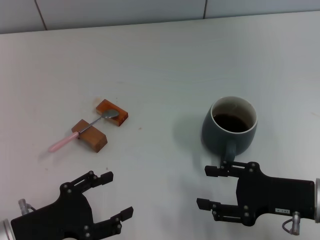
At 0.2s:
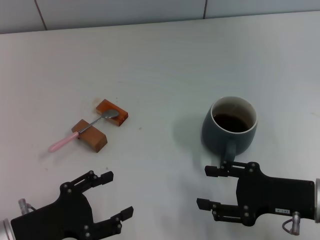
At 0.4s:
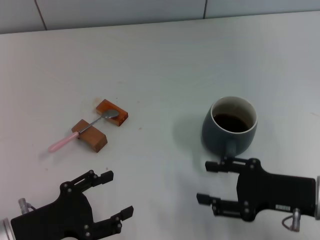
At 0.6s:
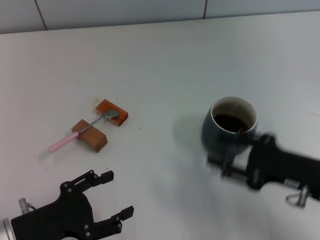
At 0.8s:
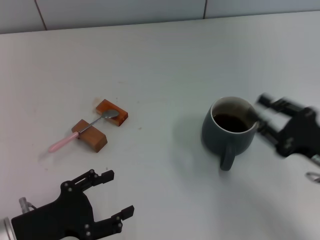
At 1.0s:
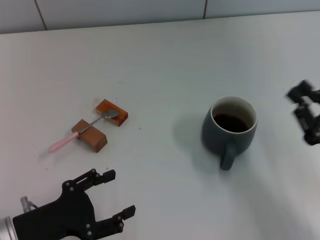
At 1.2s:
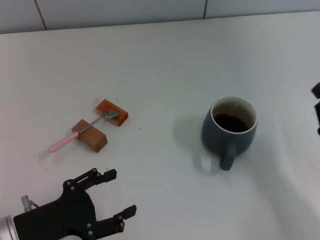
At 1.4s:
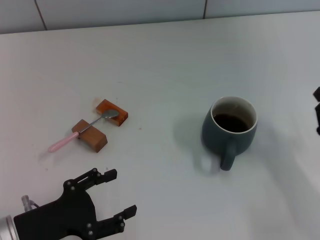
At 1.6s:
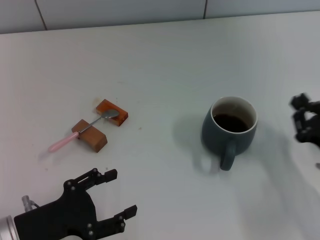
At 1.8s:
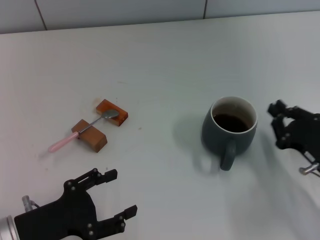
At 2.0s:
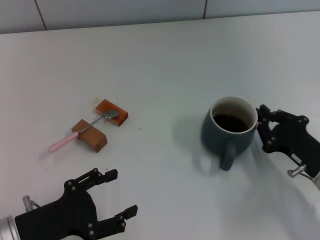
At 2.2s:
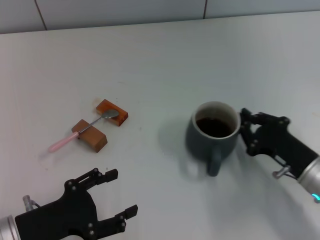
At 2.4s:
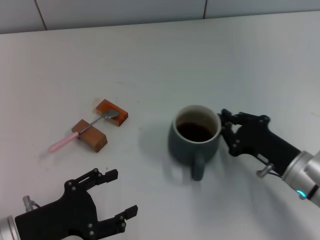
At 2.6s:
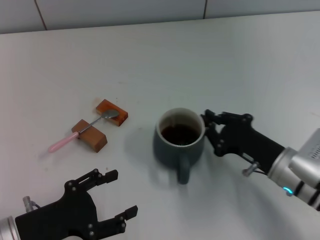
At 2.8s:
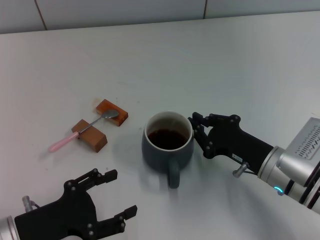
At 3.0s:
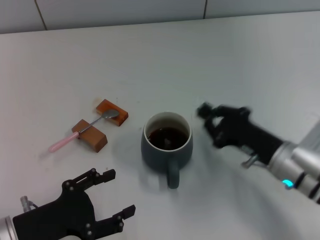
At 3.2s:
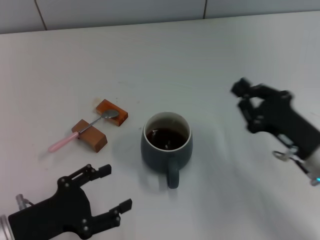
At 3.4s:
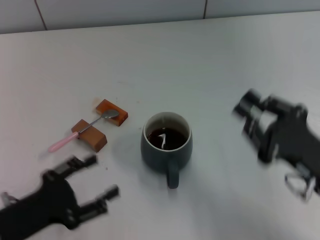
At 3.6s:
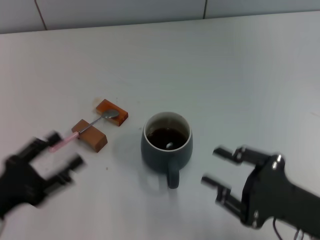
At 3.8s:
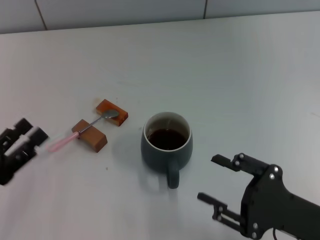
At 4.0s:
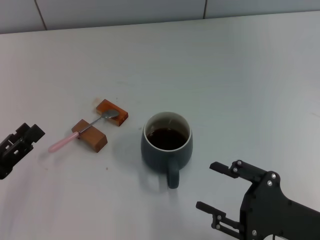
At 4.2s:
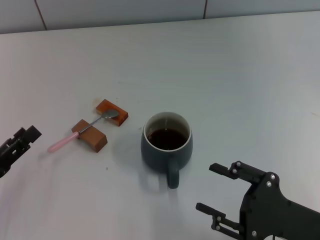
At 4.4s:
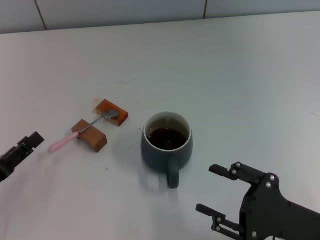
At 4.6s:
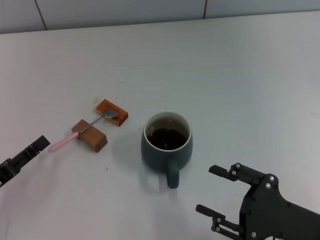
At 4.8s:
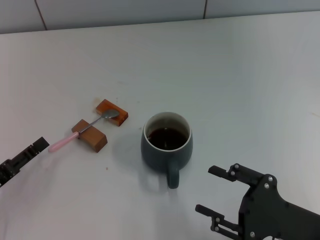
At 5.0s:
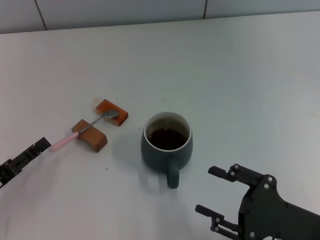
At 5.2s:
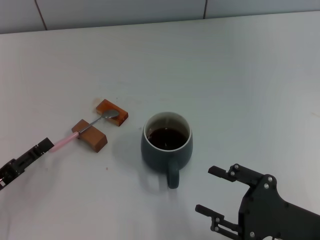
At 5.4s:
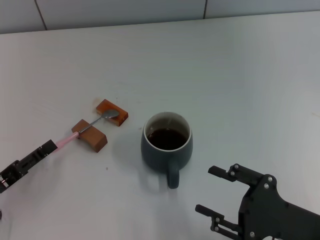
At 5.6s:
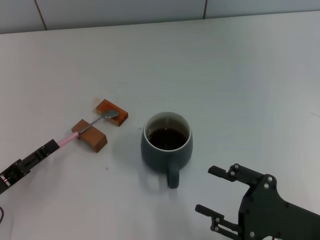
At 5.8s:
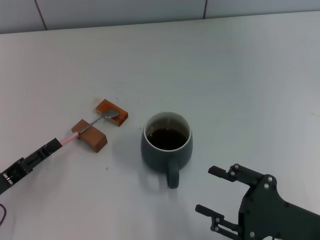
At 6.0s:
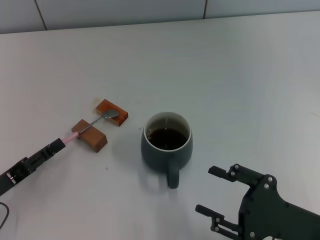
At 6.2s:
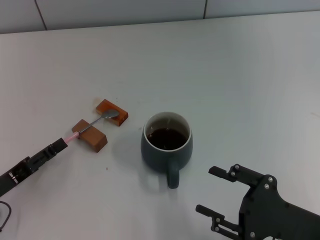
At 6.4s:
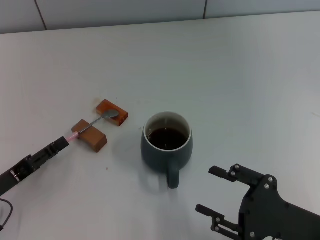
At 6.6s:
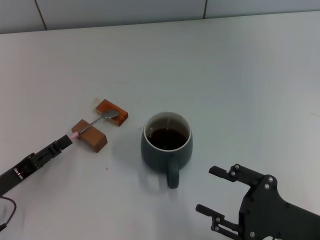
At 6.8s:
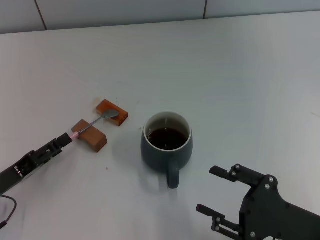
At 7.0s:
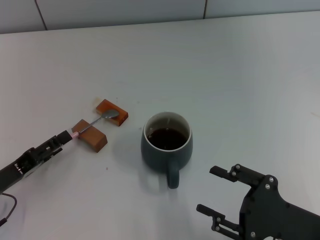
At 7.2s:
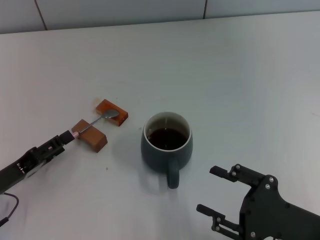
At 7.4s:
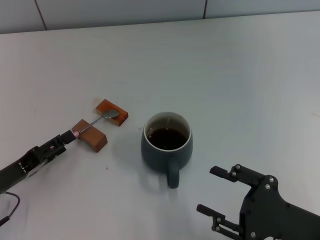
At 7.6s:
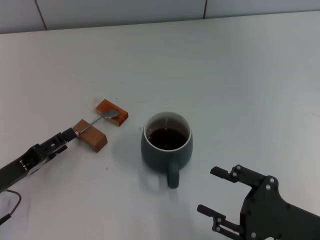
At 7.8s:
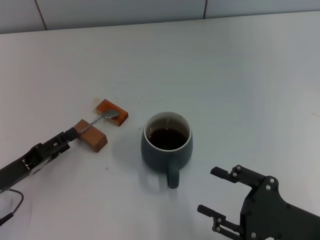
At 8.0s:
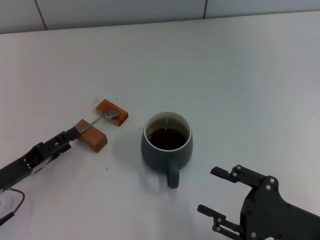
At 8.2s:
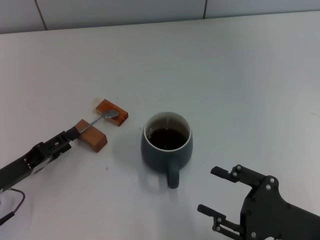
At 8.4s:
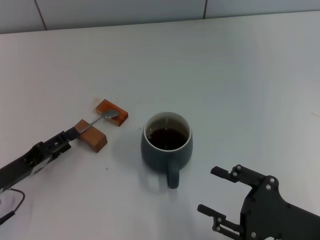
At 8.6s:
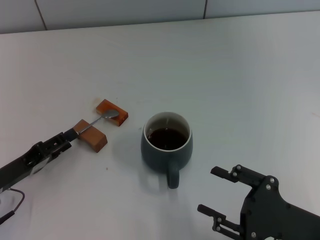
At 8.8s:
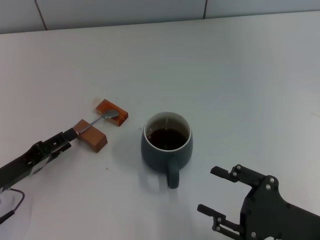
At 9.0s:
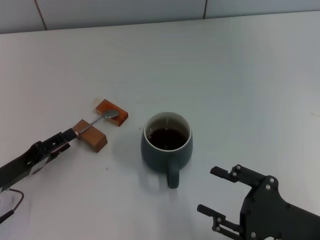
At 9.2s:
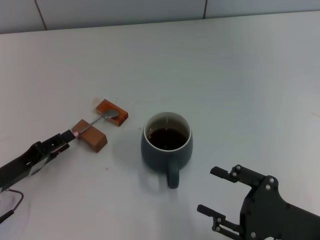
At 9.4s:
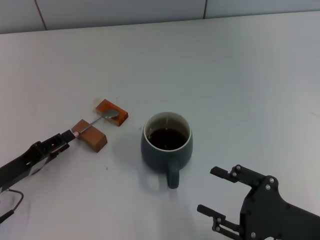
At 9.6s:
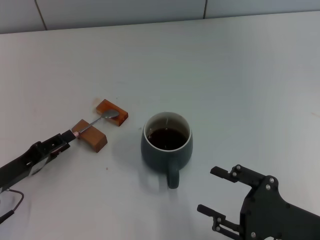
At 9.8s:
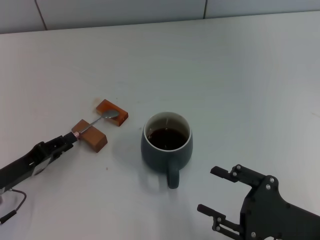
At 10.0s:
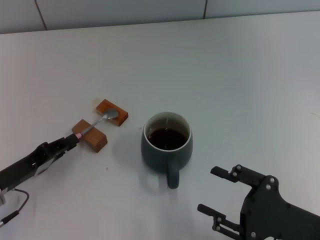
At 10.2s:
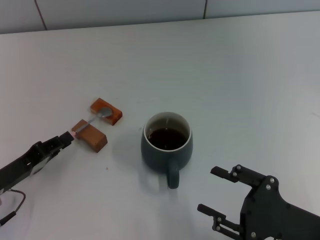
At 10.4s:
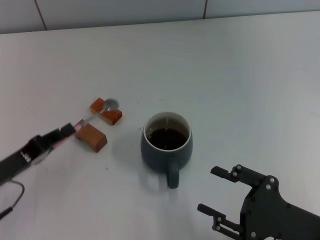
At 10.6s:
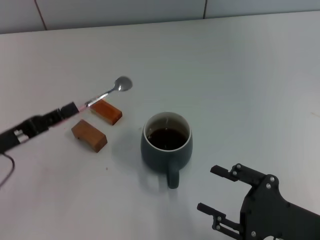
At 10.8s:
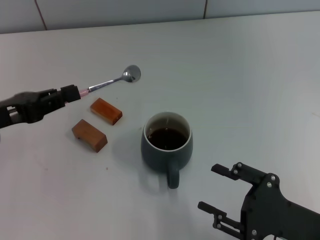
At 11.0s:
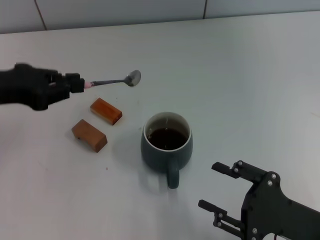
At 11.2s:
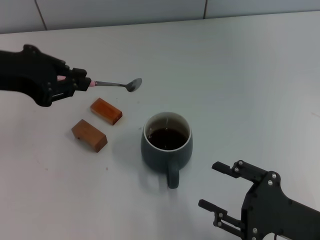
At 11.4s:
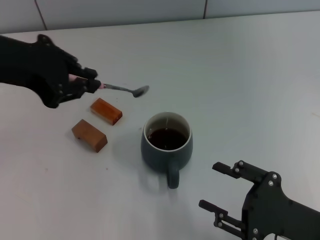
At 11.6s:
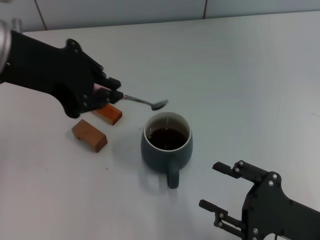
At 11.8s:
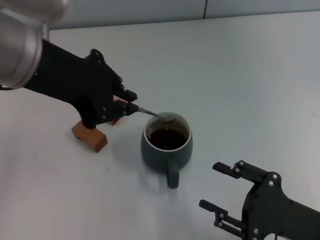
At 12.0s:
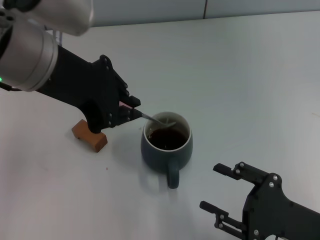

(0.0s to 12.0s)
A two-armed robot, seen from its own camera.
Task of the whole recording: Move the grey cup to the center, lift the pink spoon, stir it three times in the cup, and put the spoon into the cup.
Step, 0.0s - 2.8s: Move the cup with coffee to the center of view with the right gripper.
Step, 3.2s - 10.4s: Pick up the spoon with the left gripper.
0.0s - 1.6s: The right gripper is displaced to the right and downward by some 10 cm, and closes up.
1.6s - 3.0s: The right gripper is displaced to the left by some 10 cm.
3.0s - 4.4s: The left gripper is displaced to the left by roughly 10 cm. The right gripper moves backward, about 10 cm, and opens.
4.4s - 7.6s: The grippers move only a little.
7.6s - 9.0s: The two grippers keep their place.
9.0s - 10.4s: The left gripper closes.
10.4s - 12.0s: The left gripper moves upward and to the right, roughly 30 cm.

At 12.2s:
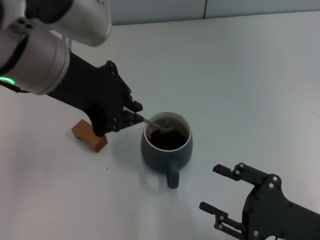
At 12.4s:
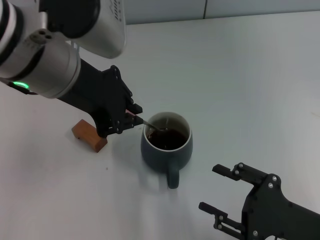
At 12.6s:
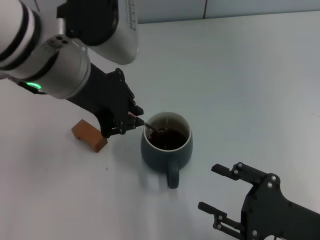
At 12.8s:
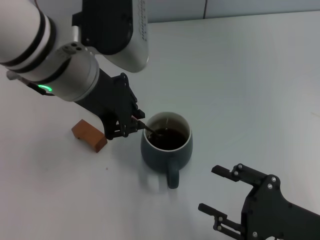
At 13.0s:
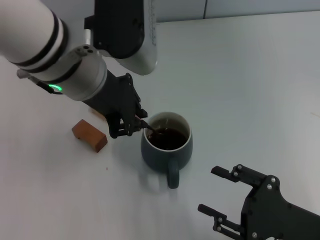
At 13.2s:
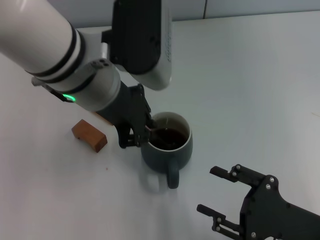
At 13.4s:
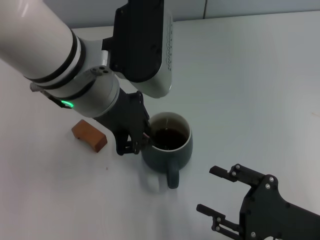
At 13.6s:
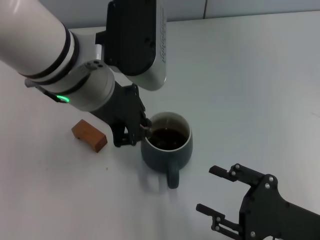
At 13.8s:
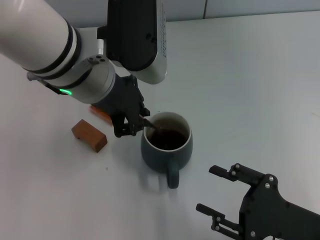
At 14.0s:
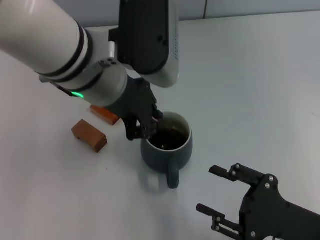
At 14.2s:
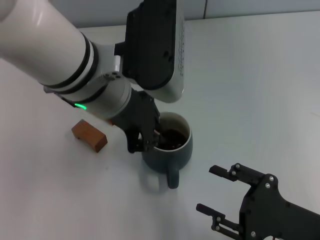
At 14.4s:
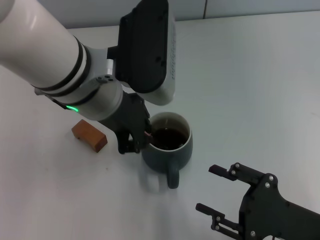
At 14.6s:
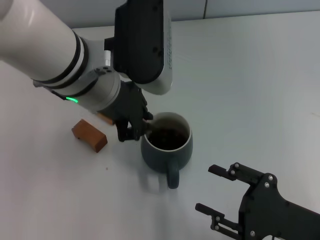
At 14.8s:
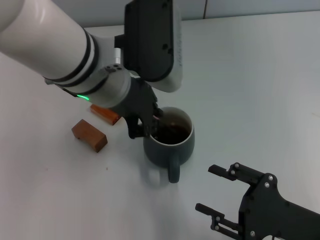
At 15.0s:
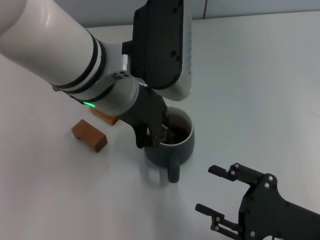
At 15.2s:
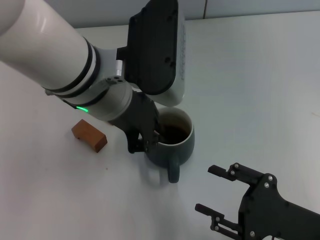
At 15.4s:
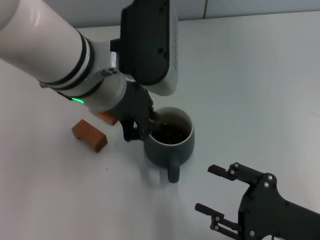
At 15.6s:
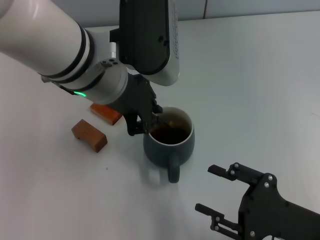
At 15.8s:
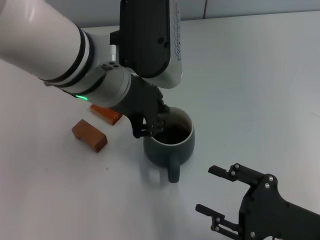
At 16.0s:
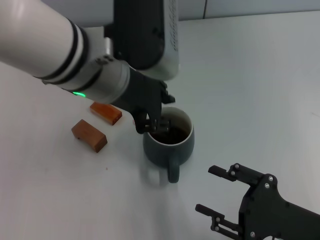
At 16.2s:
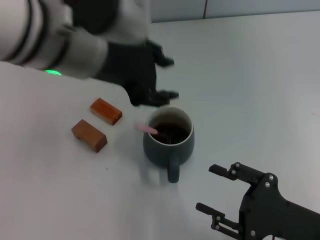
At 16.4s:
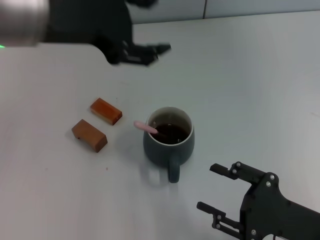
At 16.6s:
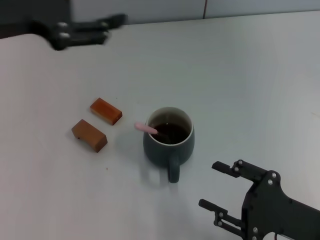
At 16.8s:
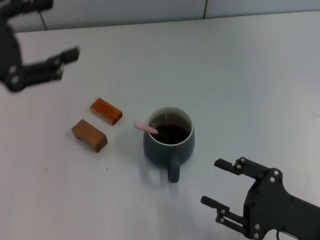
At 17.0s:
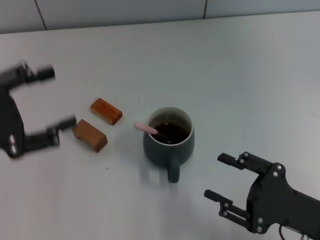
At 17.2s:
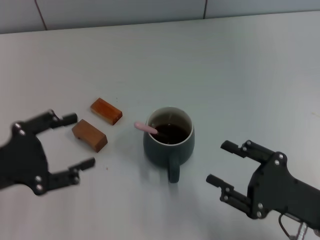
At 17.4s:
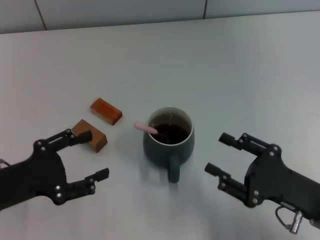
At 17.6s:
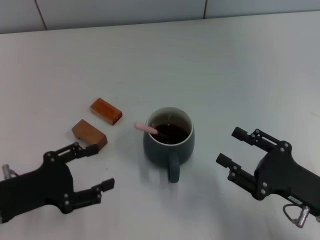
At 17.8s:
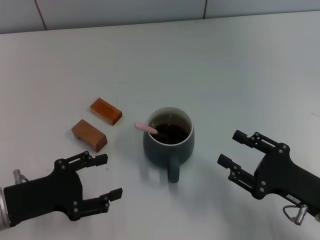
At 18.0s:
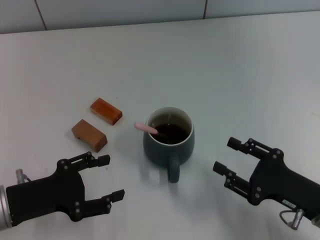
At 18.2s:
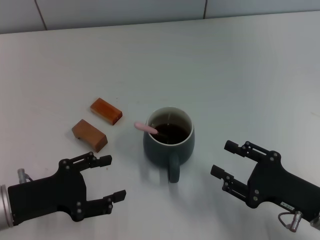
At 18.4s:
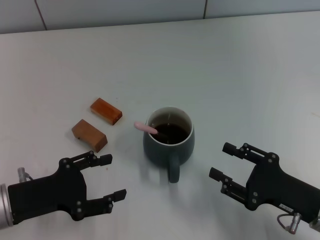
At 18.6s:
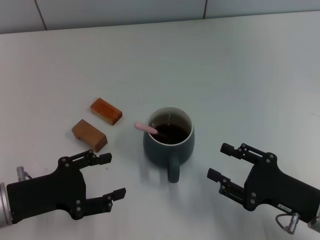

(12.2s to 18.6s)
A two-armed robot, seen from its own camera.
Task of the whole recording: Move the grey cup to the center, lift the pink spoon, stir it three times in the cup, and put the spoon into the cup.
Step, 12.2s - 16.0s: Stir the coffee in the cup with the left gripper.
12.2s - 13.8s: The left gripper changes place by approximately 5 cm.
13.8s - 15.4s: The grippers stay close to where they were, moving slightly.
15.4s - 17.0s: The left gripper shifts some 20 cm to the left, and opens up.
17.0s - 18.6s: The left gripper shifts some 10 cm downward.

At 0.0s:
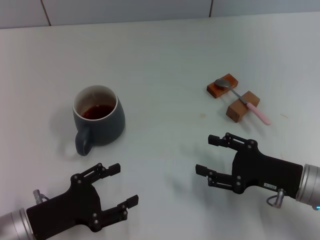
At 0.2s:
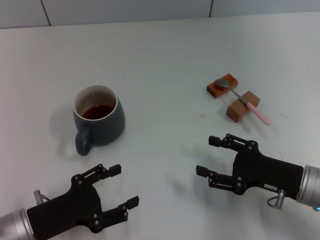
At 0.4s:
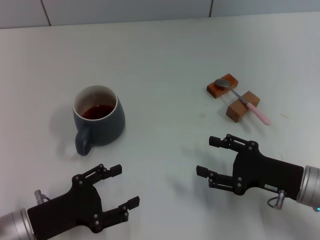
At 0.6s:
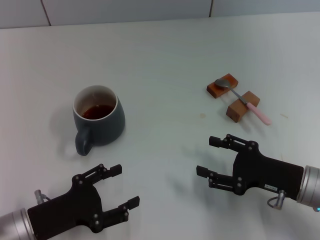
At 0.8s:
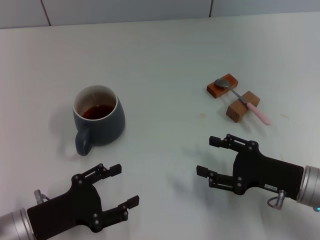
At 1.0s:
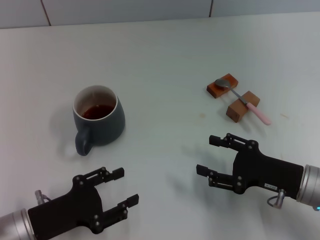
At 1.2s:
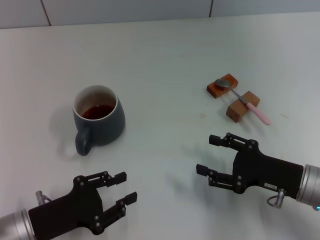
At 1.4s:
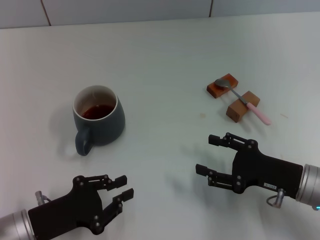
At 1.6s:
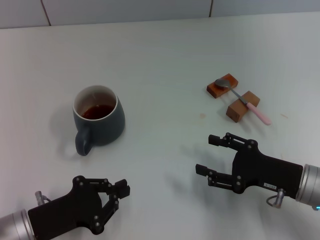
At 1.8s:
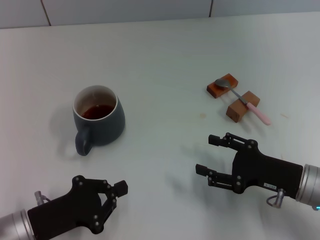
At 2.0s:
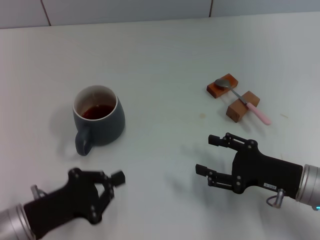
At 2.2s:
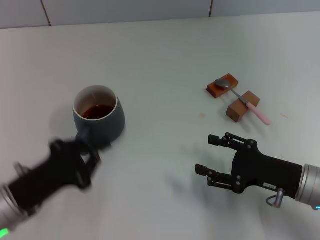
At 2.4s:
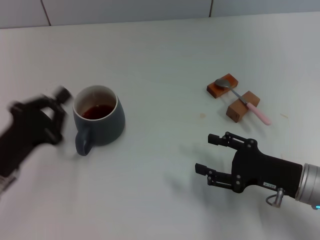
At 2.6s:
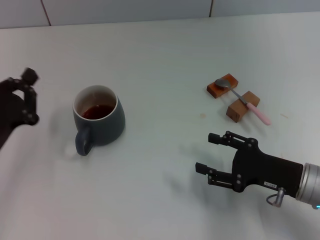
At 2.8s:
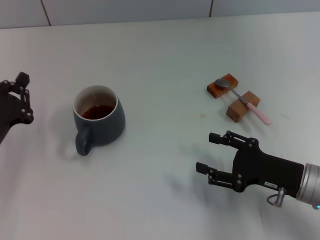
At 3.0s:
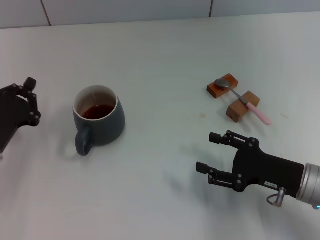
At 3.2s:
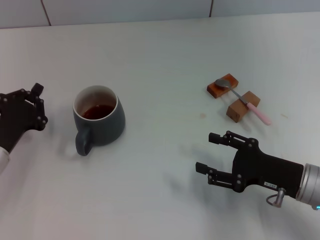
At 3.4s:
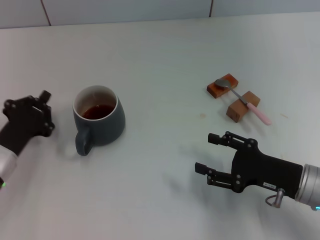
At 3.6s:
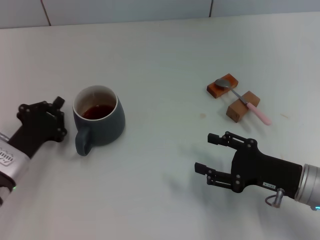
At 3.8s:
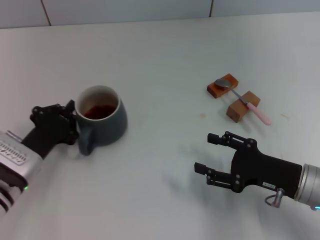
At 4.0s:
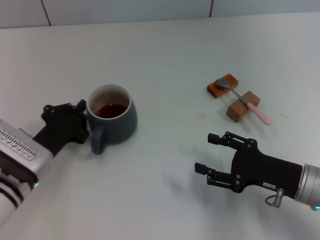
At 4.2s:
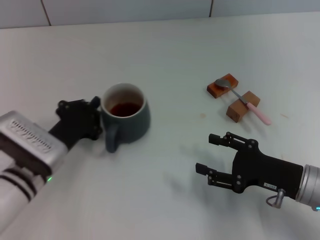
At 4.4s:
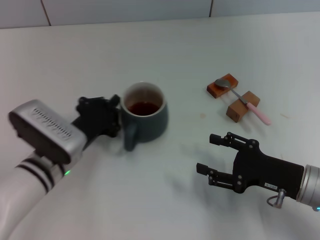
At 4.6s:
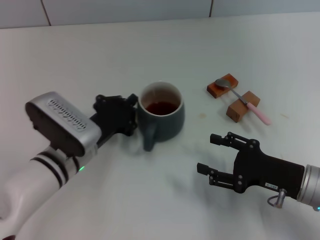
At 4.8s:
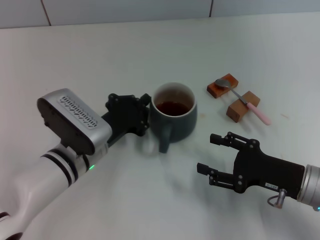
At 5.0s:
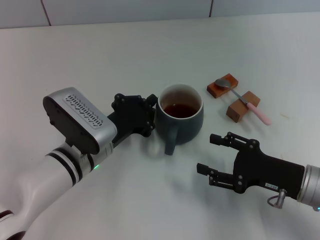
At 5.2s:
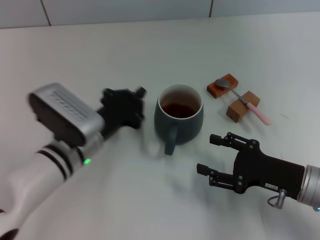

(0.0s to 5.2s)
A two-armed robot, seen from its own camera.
Task of the whole recording: Move the grey cup to the center, lift the pink spoon, stir it three times in the cup, and put the spoon into the cup.
Step, 0.0s - 5.0s: Move the cup with coffee to the center of view with the left gripper.
0.0s - 1.8s: The left gripper closes up.
1.8s - 3.4s: The left gripper goes about 10 cm forward.
3.4s - 5.2s: The left gripper moves to the right, approximately 10 cm.
